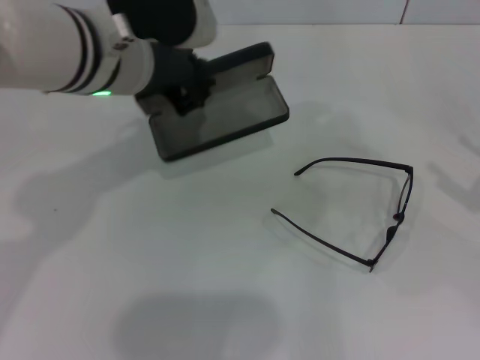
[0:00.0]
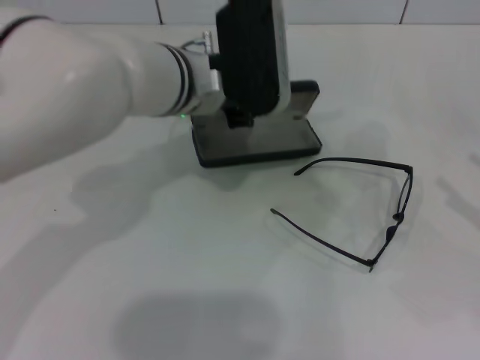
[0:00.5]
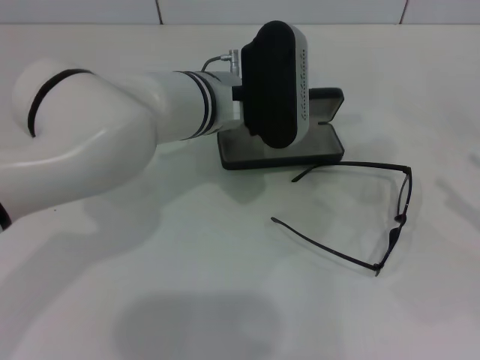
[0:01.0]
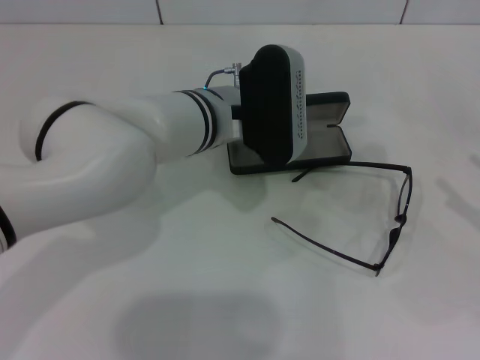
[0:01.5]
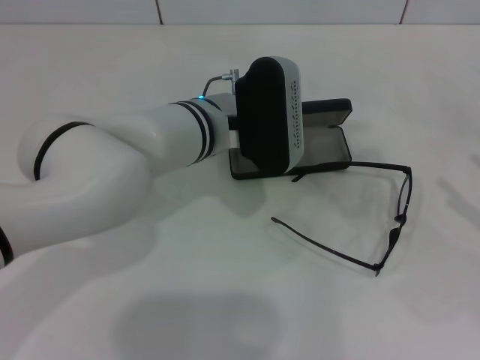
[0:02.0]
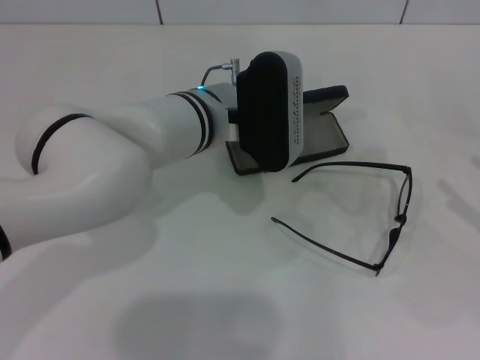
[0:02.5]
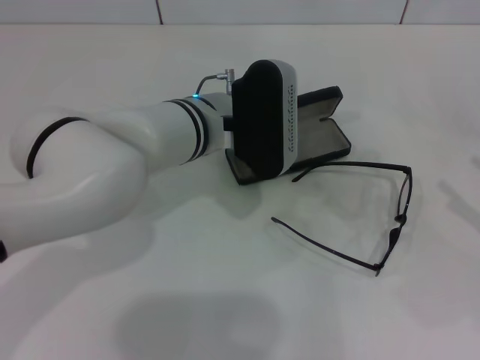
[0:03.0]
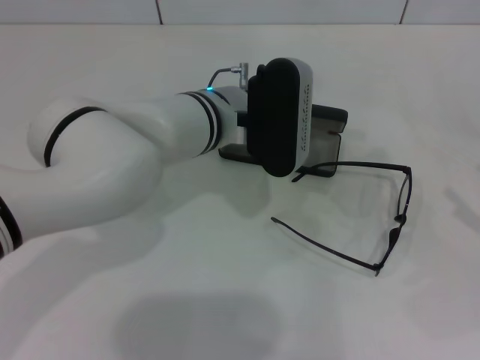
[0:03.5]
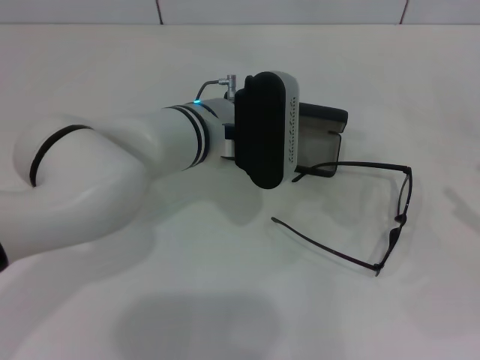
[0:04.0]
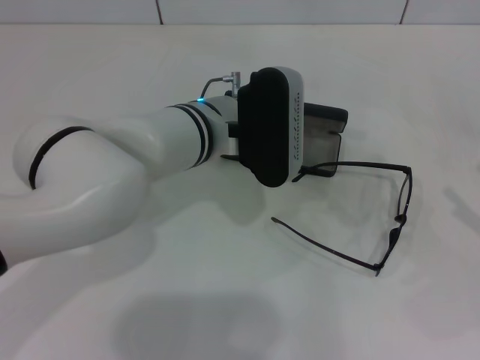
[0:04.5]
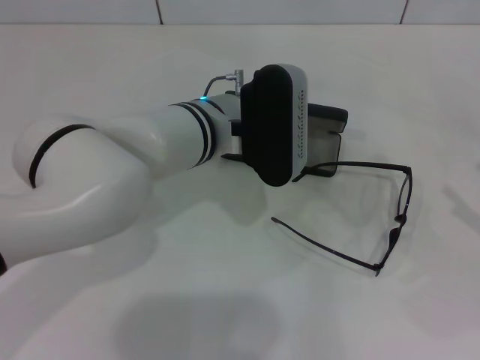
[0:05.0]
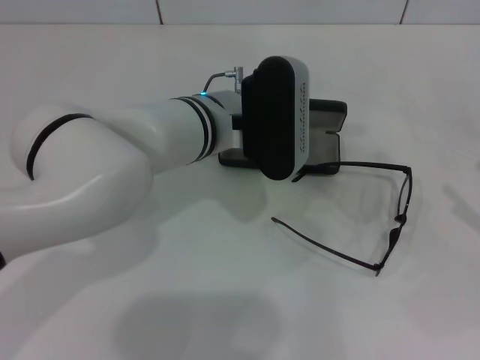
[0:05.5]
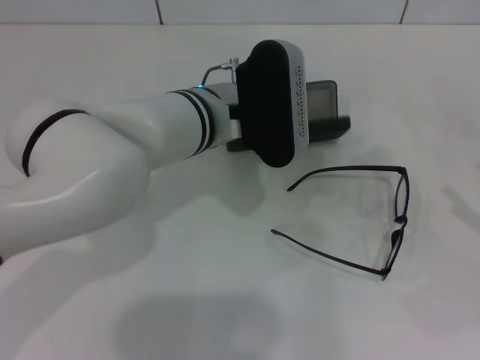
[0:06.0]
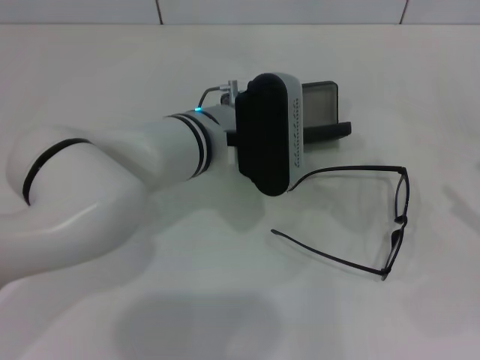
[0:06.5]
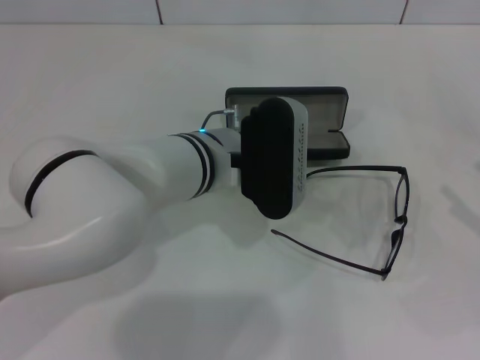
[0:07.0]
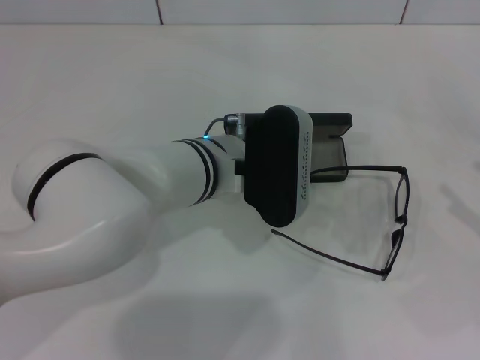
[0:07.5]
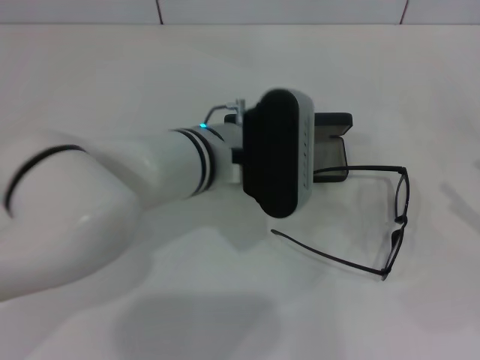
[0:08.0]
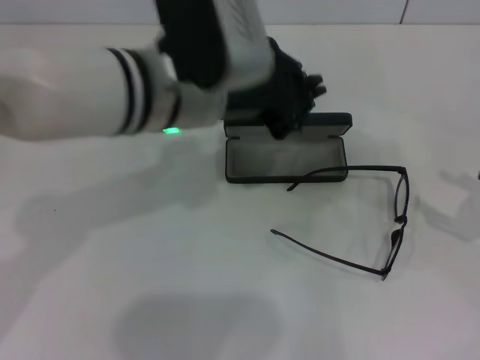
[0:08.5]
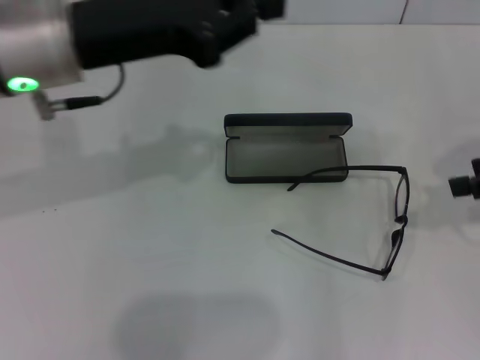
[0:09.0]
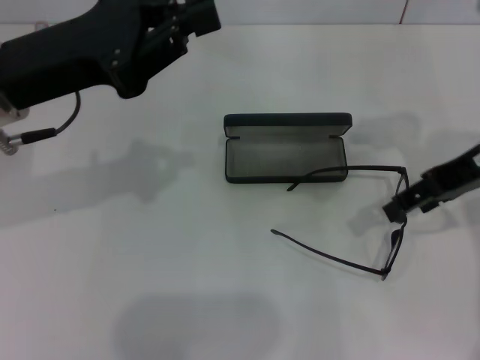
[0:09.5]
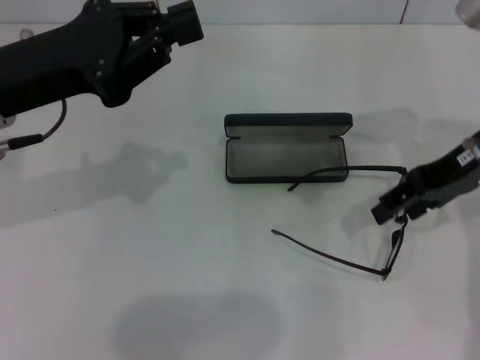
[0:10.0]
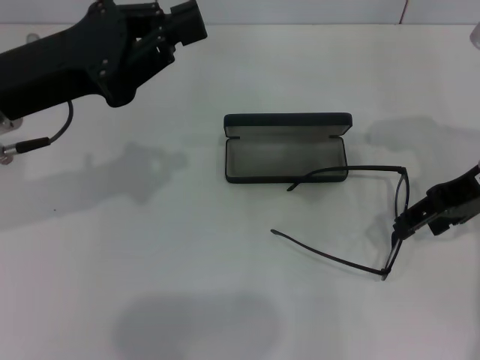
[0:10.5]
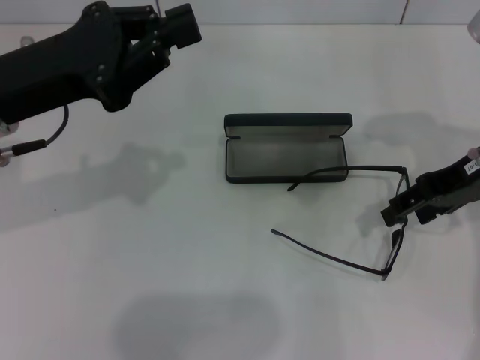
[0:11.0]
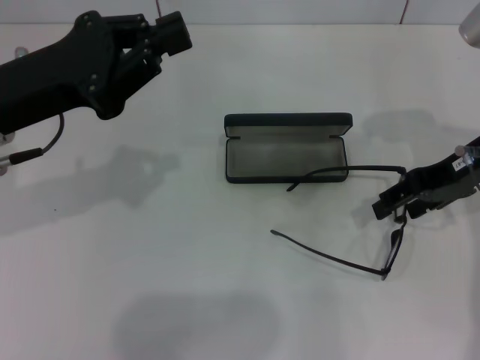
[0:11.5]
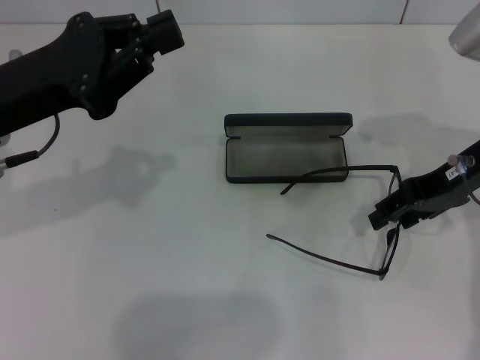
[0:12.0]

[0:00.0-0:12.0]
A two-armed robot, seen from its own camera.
Step, 0:00.0 to 0:07.0: Place the glasses case in the center of the table with your left hand.
0:00.0 to 0:02.0: The left gripper goes approximately 15 cm downward and to the right.
0:02.0 to 0:04.0: The grippers make only small movements.
0:04.0 to 0:06.0: The left gripper closes up.
0:06.0 to 0:08.0: The grippers stay close to where they were, moving slightly.
0:08.0 to 0:10.0: The right gripper heads to the left, forward and upward, covering roughly 25 cm; the left gripper shifts approximately 20 cm to the left.
0:10.0 to 0:12.0: The grippers make only small movements.

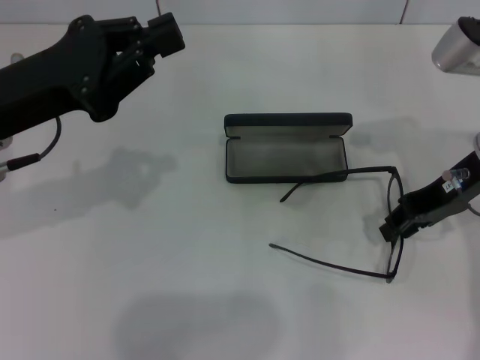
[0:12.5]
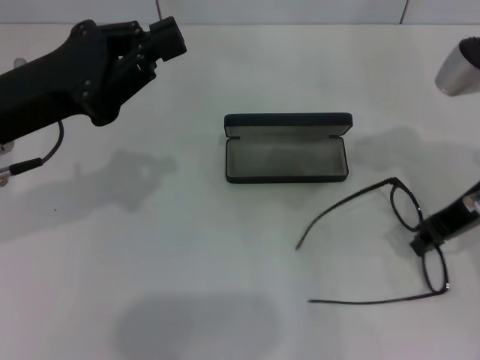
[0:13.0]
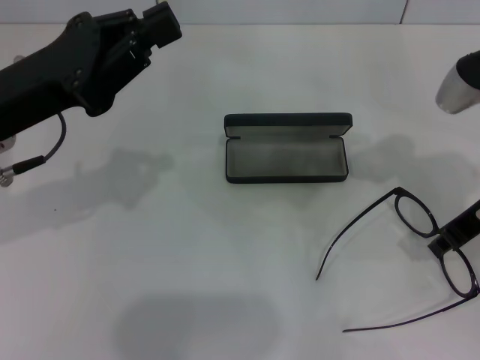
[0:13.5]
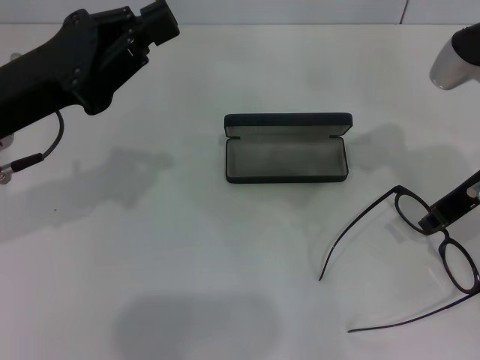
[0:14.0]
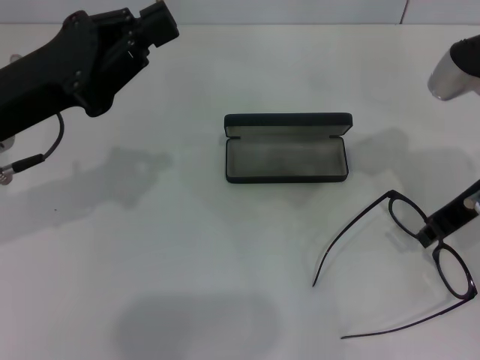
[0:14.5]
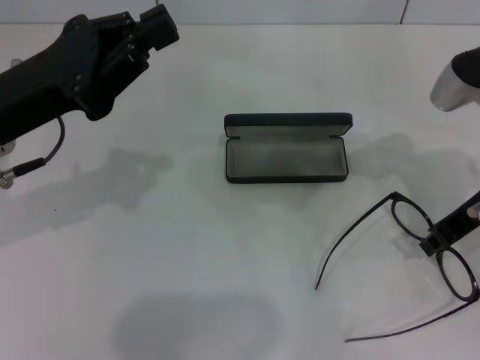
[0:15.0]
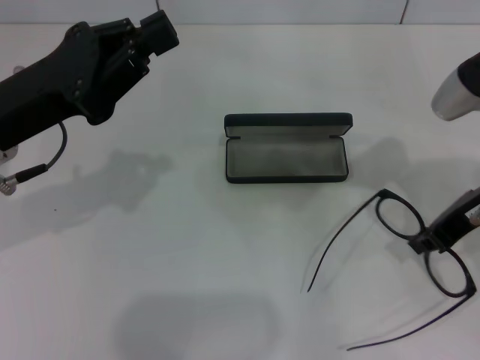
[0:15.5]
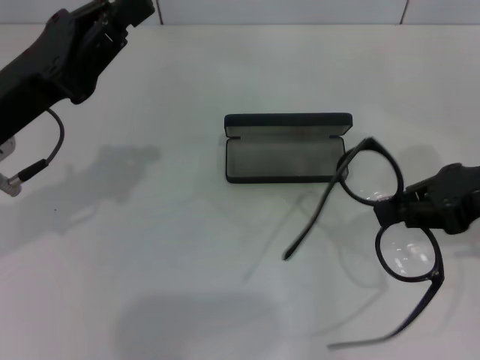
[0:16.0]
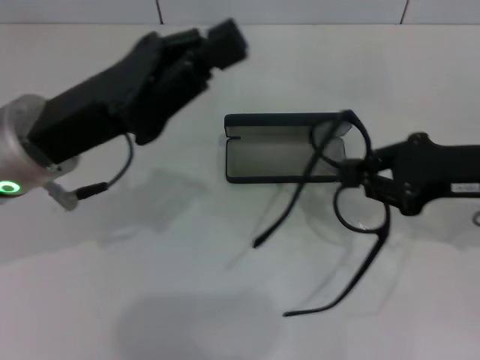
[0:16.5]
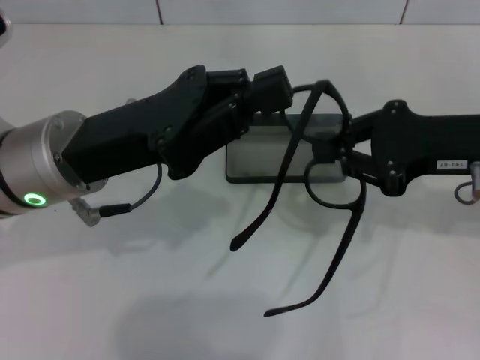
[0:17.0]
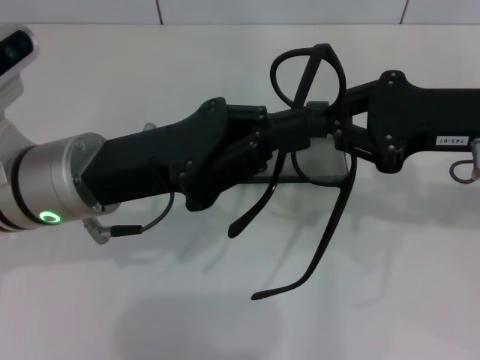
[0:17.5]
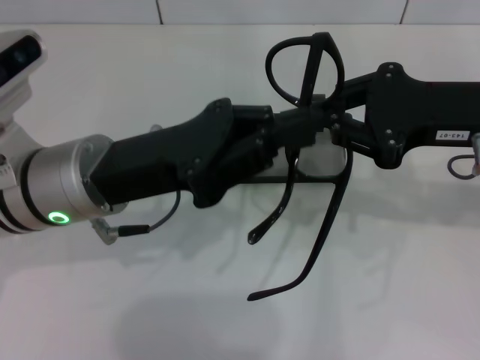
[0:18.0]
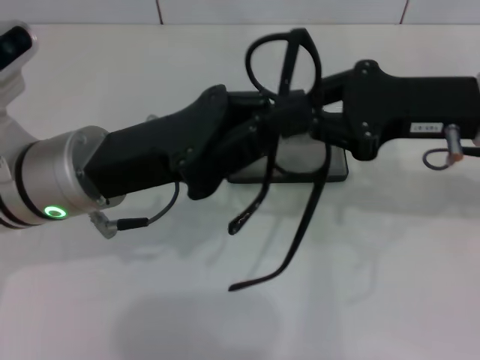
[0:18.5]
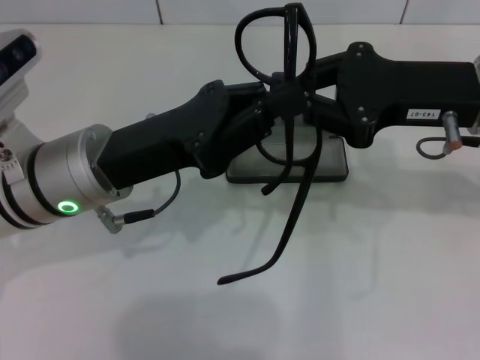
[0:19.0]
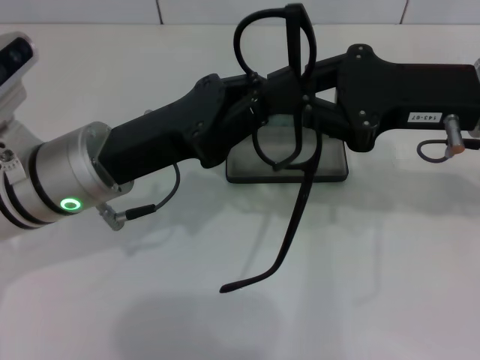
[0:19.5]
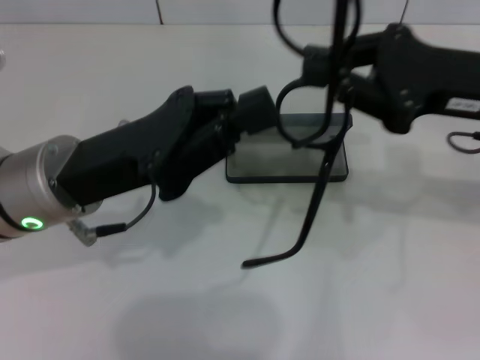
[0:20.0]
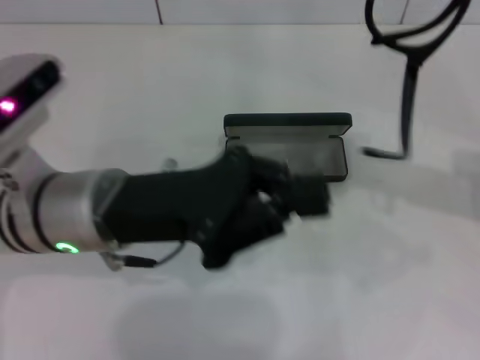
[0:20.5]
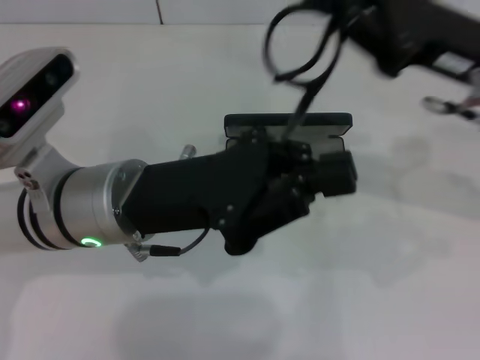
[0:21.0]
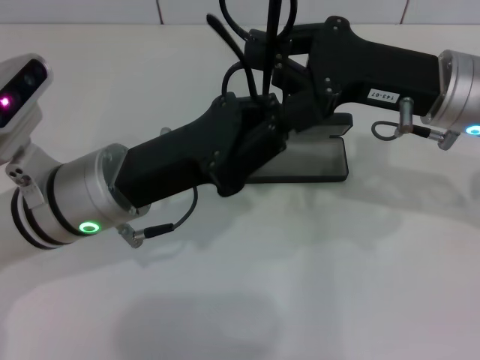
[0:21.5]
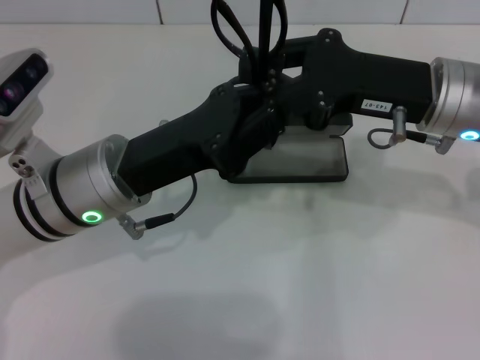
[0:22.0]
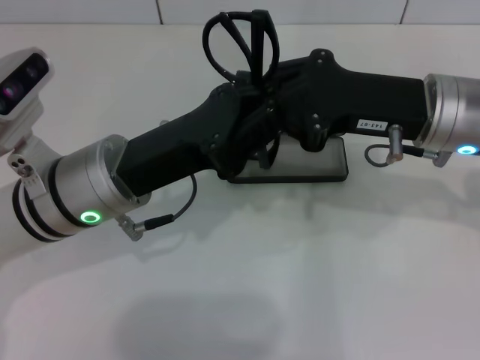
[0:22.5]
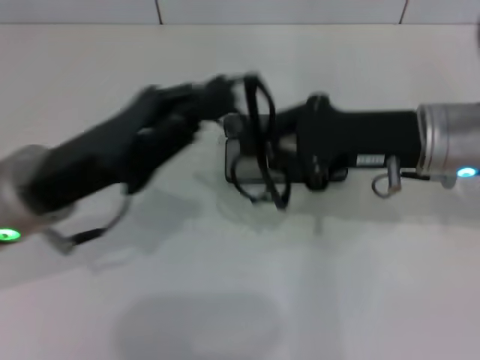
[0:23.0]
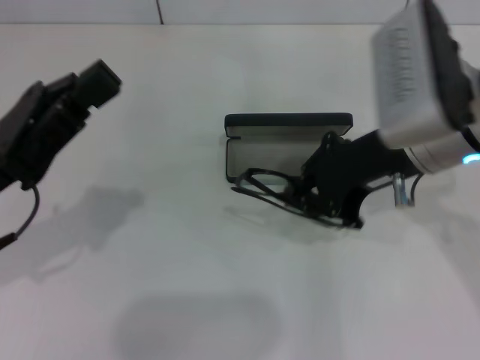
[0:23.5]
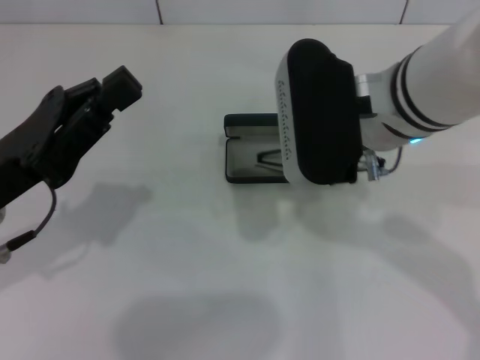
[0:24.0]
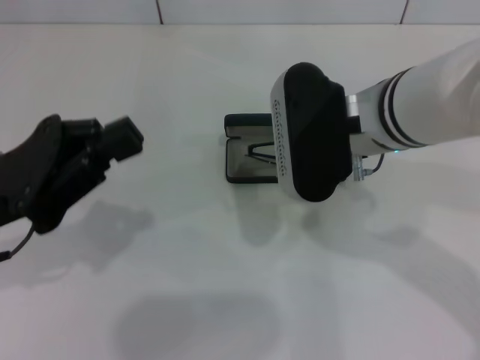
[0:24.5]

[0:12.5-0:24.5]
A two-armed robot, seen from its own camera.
Step, 0:13.5 to 0:22.5: Fold the frame with your left hand.
0:14.5 to 0:16.5: The left gripper moves about 5 cm.
0:16.5 to 0:18.5: The right gripper moves approximately 5 cm.
0:18.5 to 0:20.5: The right gripper shifts some 5 cm to the right.
0:20.5 to 0:22.5: The right gripper heads to the left and downward, covering roughly 10 cm.
0:22.5 to 0:24.5: Both grippers move to the left, some 10 cm.

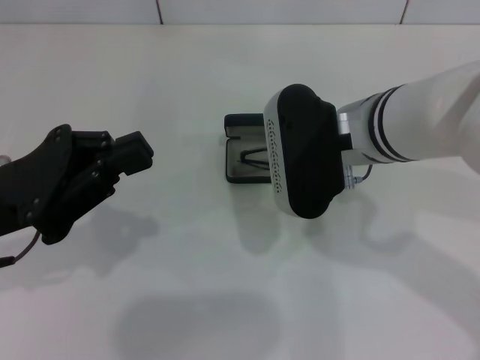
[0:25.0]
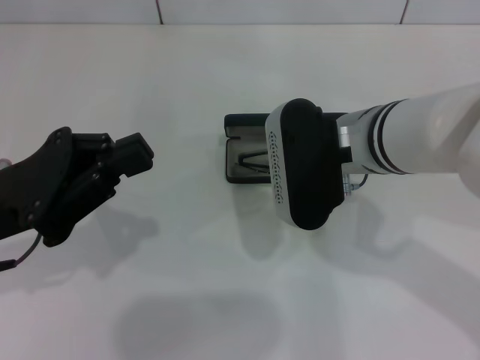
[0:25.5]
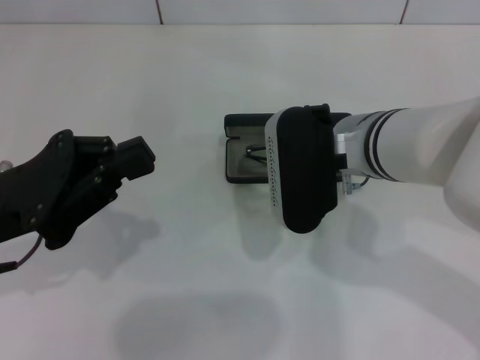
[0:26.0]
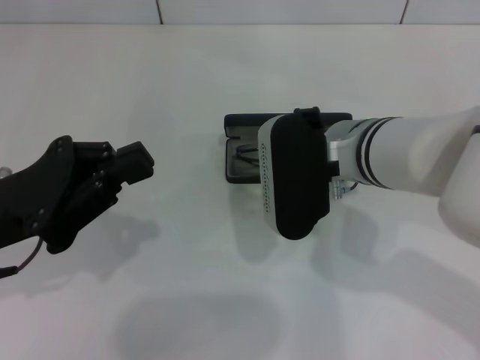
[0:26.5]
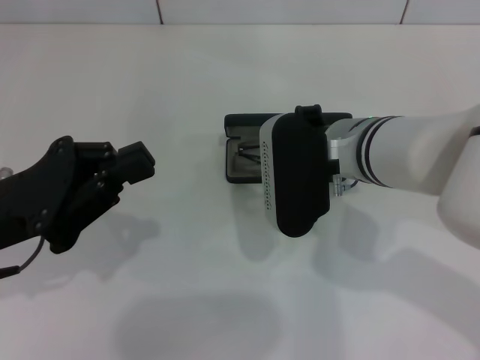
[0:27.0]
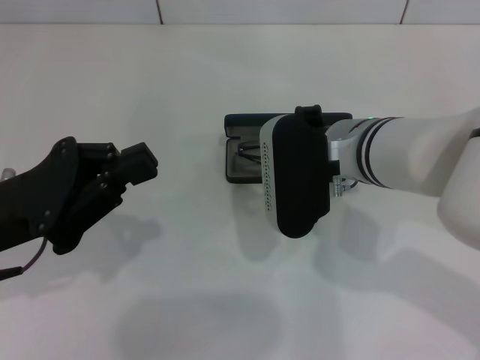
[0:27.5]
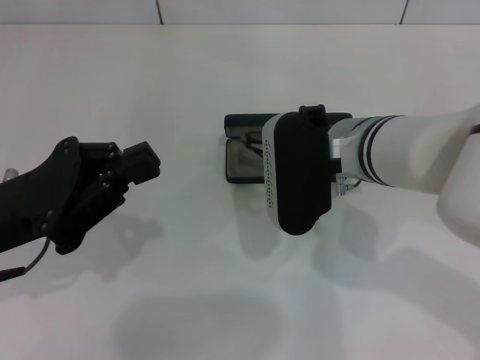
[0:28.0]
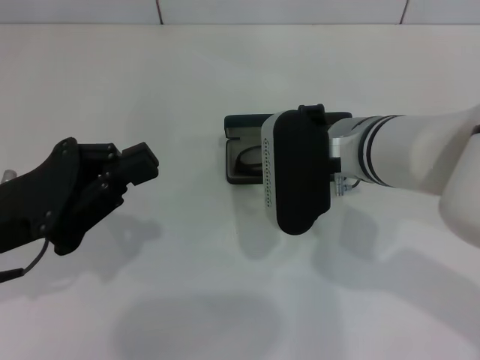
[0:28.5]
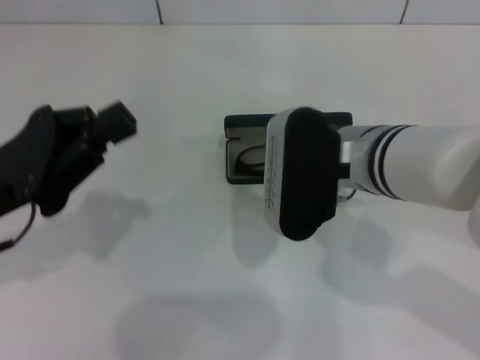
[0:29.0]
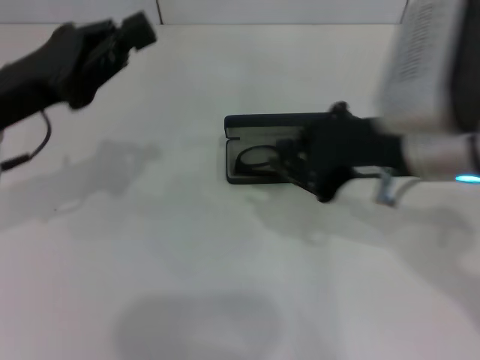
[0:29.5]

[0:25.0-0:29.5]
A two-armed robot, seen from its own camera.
Step, 0:25.0 to 0:28.0: Put the glasses into the case with your right hand.
0:25.0 to 0:27.0: There are only small adjustments of the grippers.
0:27.0 to 0:29.5: The right gripper is displaced upward and to the right by some 10 cm; the left gripper heads forward, covering some 5 cm.
